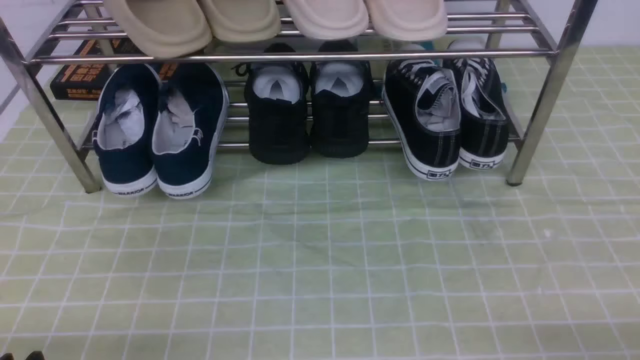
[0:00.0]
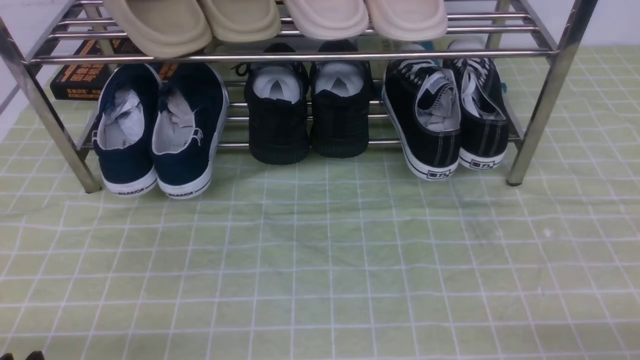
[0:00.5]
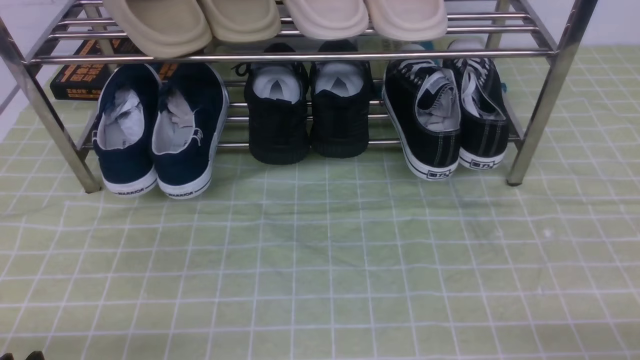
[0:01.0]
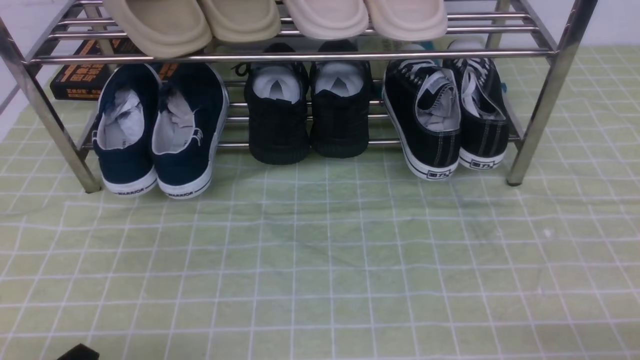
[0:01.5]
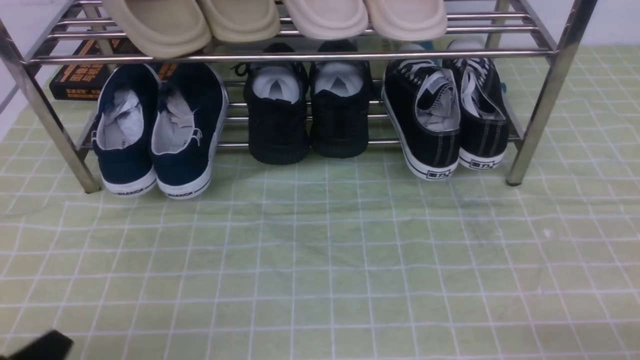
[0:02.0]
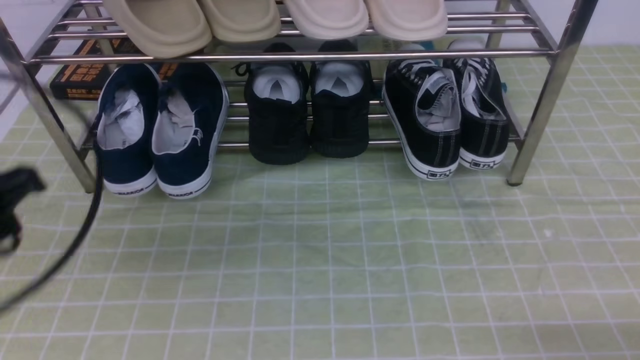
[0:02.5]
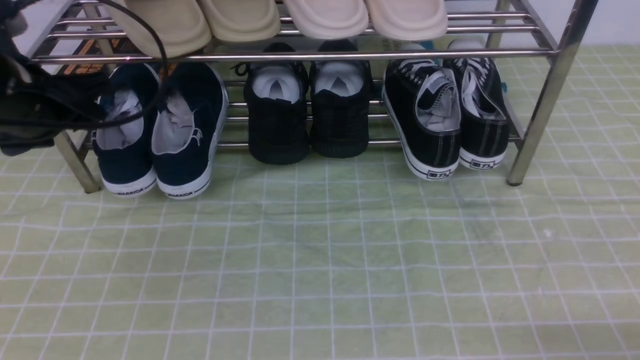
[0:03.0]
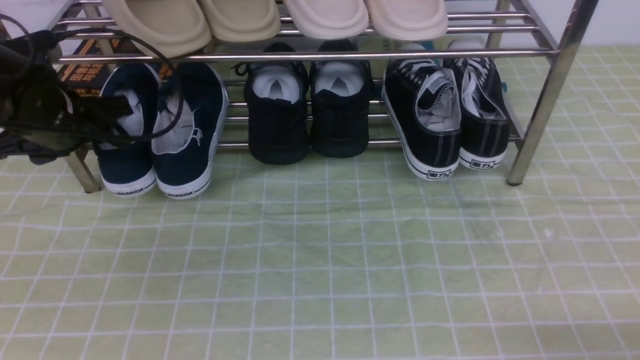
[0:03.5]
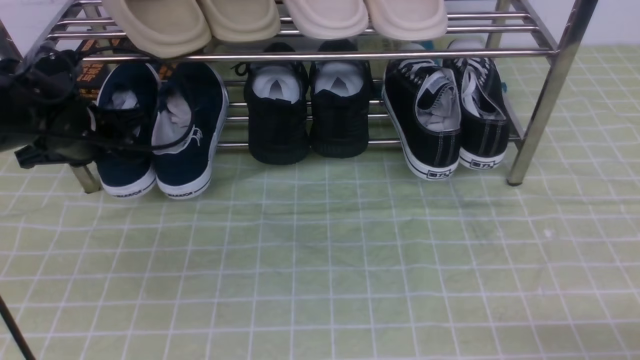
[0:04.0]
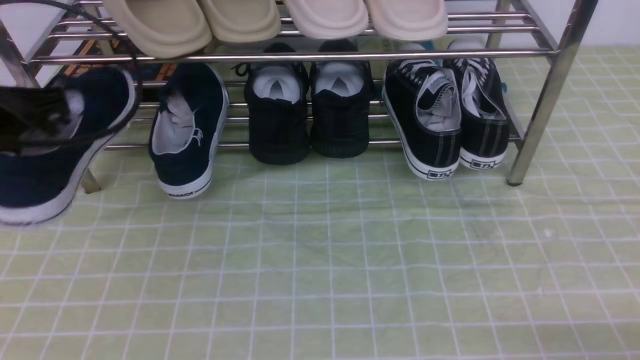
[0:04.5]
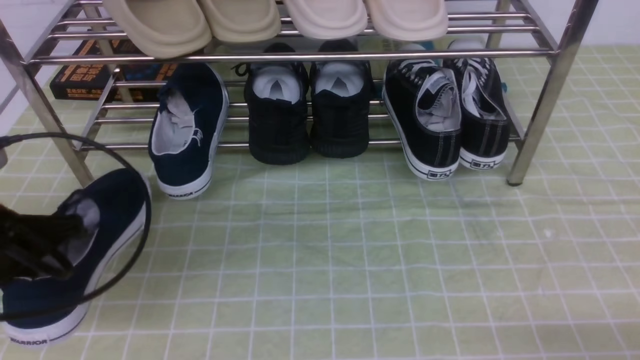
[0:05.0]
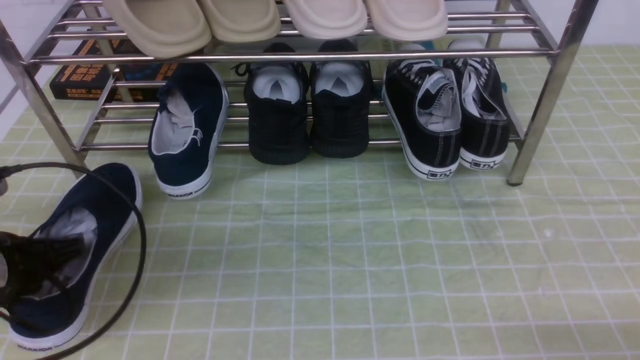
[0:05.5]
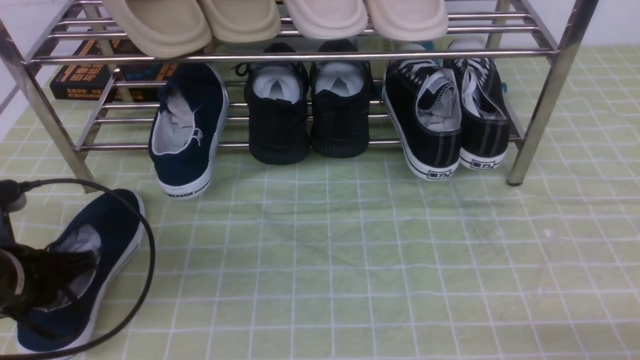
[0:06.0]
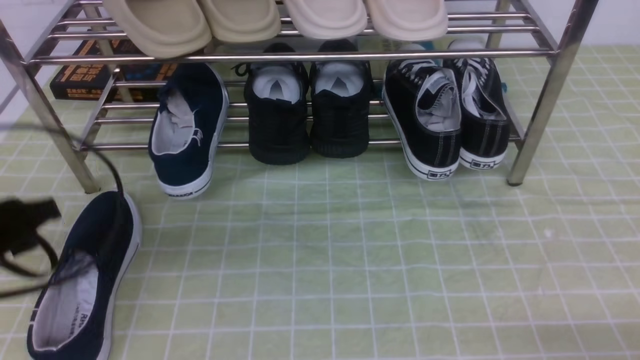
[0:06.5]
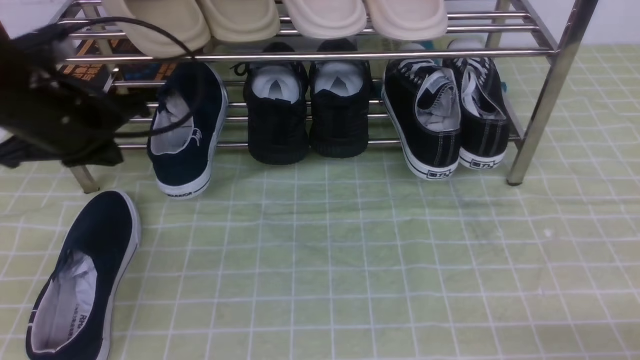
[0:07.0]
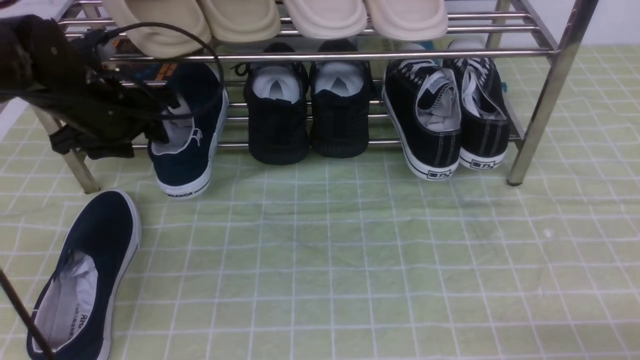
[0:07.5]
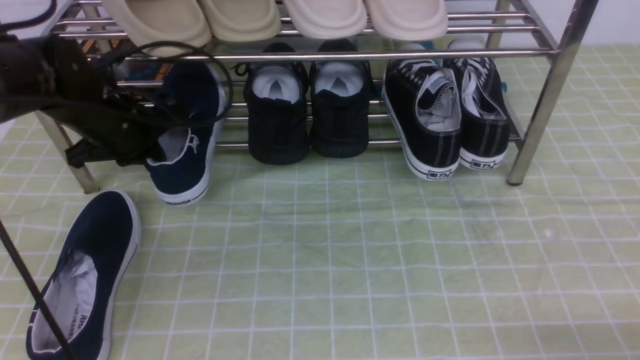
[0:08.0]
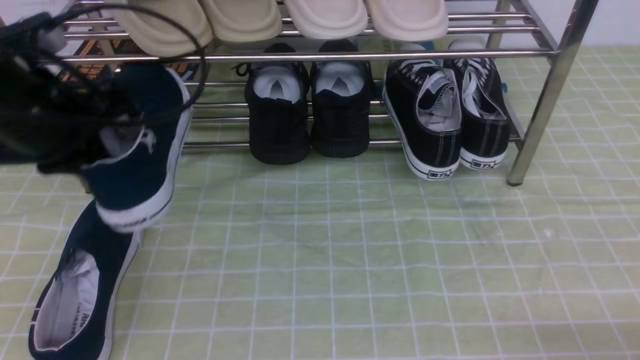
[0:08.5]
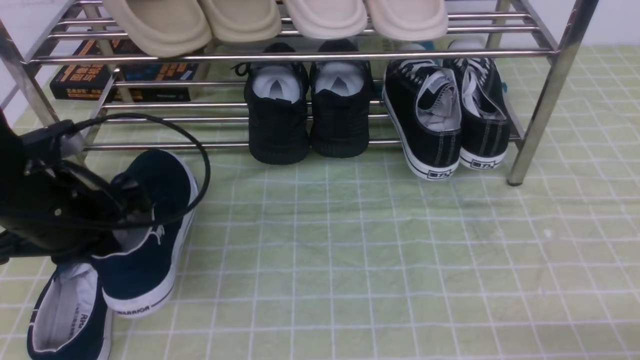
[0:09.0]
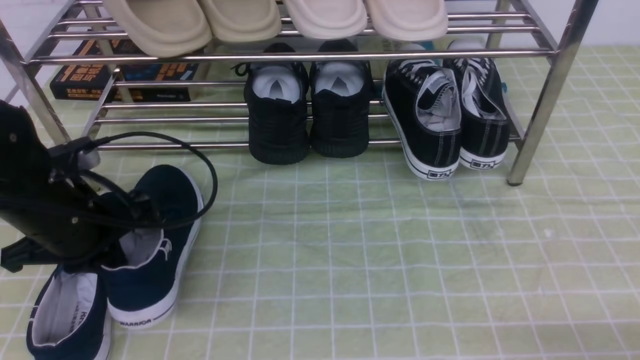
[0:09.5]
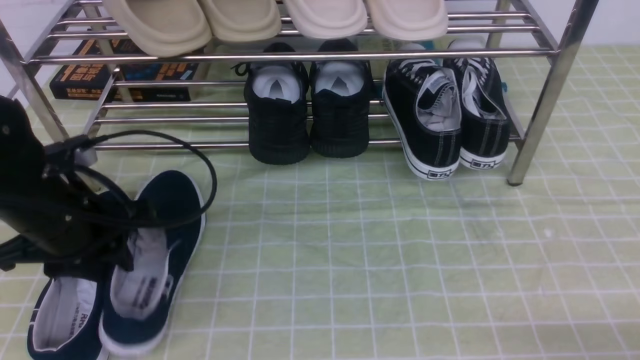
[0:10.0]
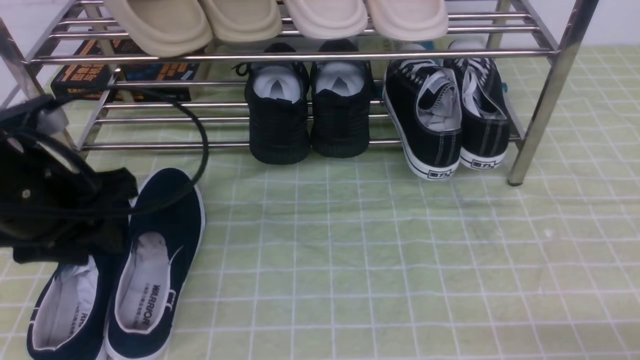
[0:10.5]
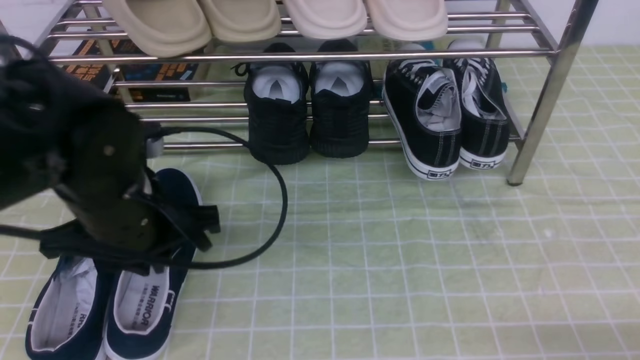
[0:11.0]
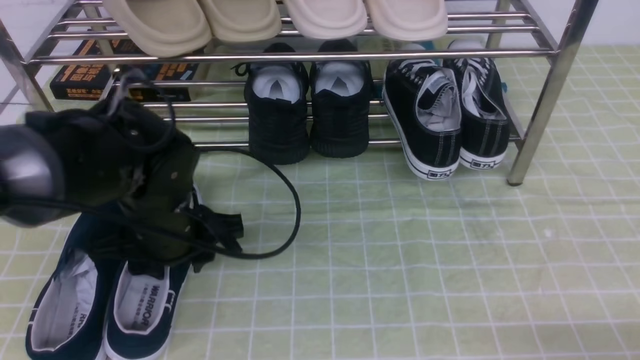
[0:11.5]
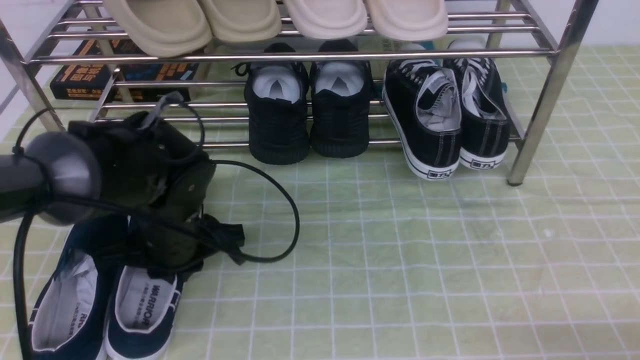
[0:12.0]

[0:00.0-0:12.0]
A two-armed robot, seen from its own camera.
Step, 0:00.0 to 0:04.0: use the left arm to clamp a shoe on the left side of the shoe rack.
Step, 0:04.5 to 0:06.0: Use your left arm to remove the clamped shoe from the shoe rack and put it down.
Step, 0:06.5 to 0:07.5: use the left arm to clamp a shoe on the left side of the shoe rack.
Step, 0:08.0 to 0:10.0: Use your left arm to remove the clamped shoe from the shoe rack and put it down.
0:00.0 to 0:02.0: The left gripper is displaced upward by approximately 5 cm, and closes up.
0:02.0 to 0:04.0: The left gripper goes approximately 30 cm forward, and opens, then closes again.
0:04.0 to 0:06.0: The left gripper is displaced backward by roughly 15 cm.
0:06.0 to 0:08.0: The left gripper shifts about 15 cm forward, and opens, then closes once more.
0:08.0 to 0:10.0: The left gripper heads backward, covering about 10 cm, and opens.
0:10.0 to 0:12.0: The left gripper travels to the right and downward by some 10 cm, and closes its fingers.

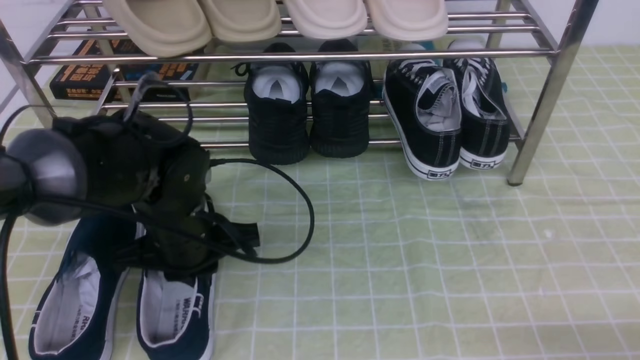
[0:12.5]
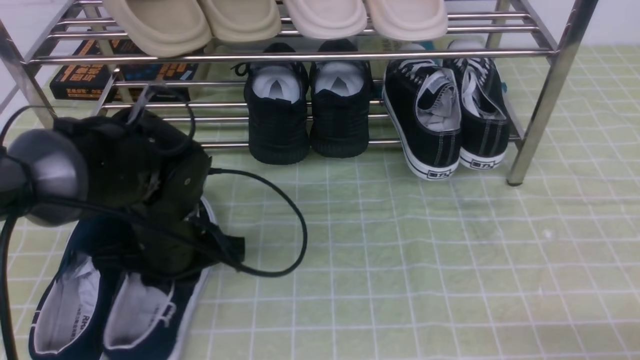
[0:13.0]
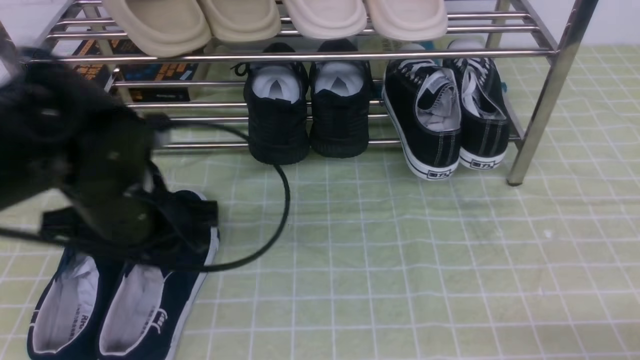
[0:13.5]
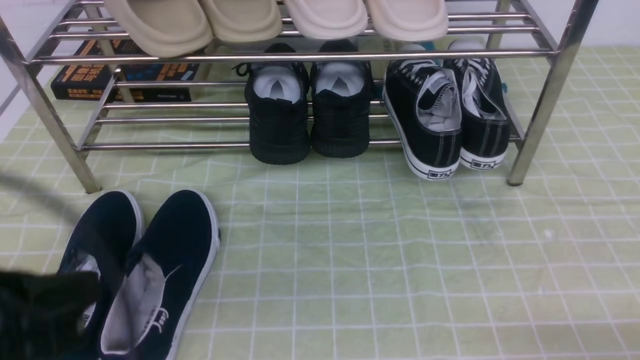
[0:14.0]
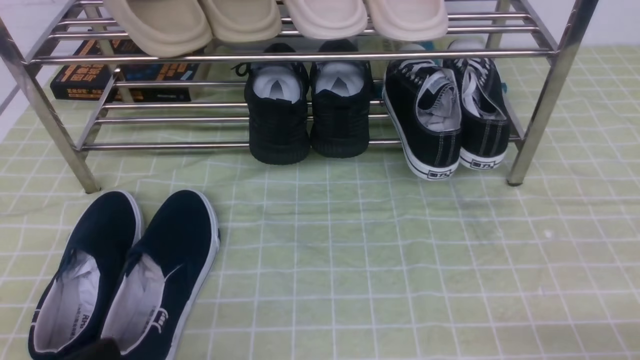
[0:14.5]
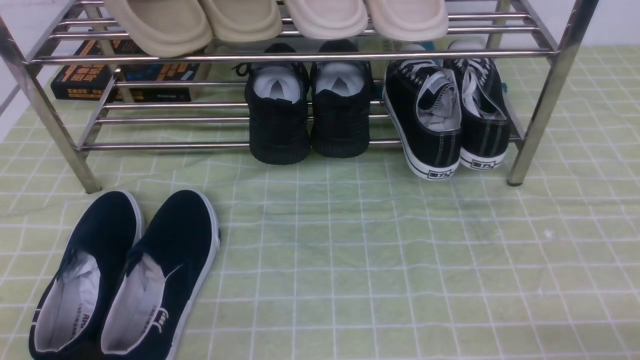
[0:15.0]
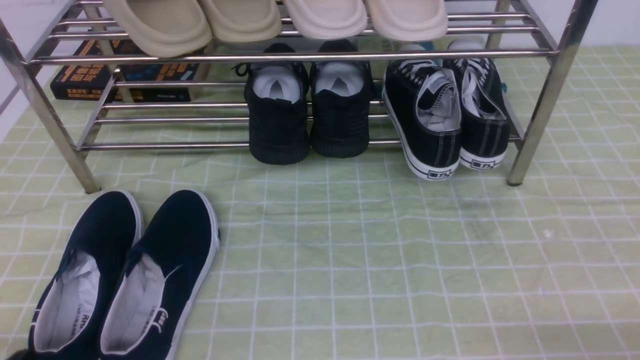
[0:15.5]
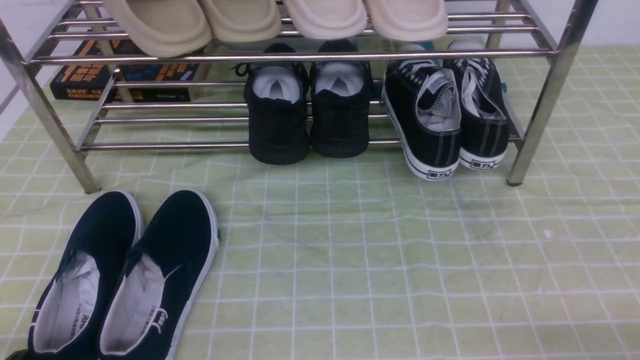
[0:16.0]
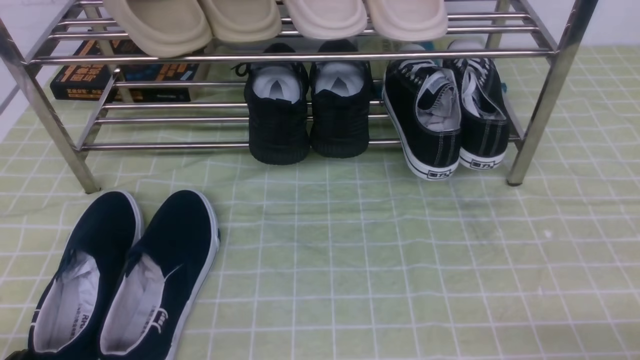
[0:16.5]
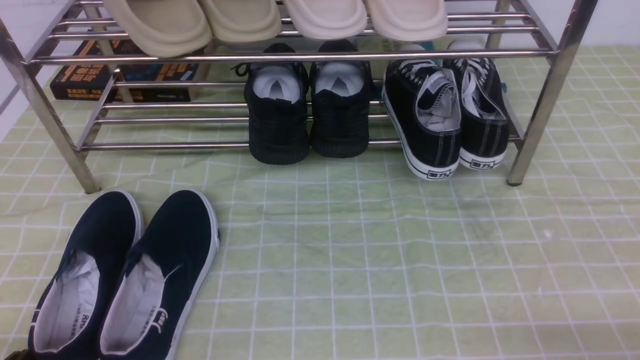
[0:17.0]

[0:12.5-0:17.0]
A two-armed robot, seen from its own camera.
0:12.5 to 0:14.5: The left gripper moves backward and to the left, approximately 25 cm, and opens, then closes once more.
0:14.5 to 0:17.0: The left gripper changes place by approximately 5 cm.

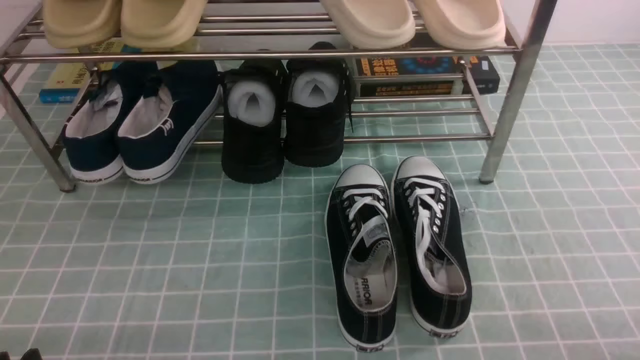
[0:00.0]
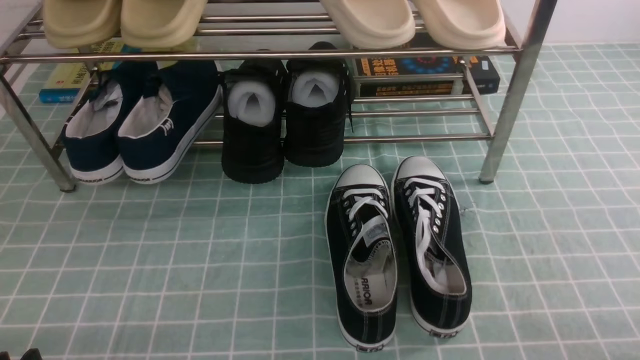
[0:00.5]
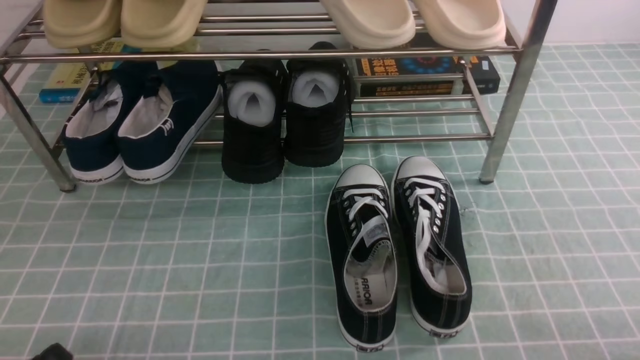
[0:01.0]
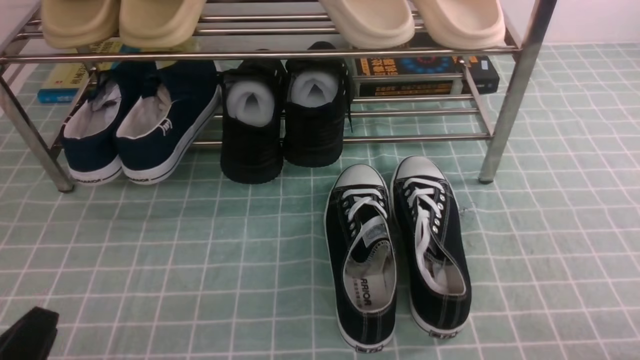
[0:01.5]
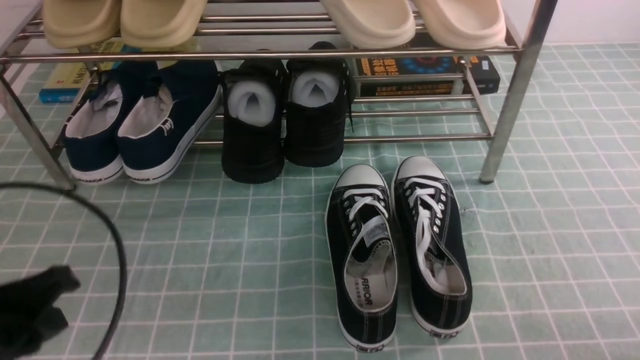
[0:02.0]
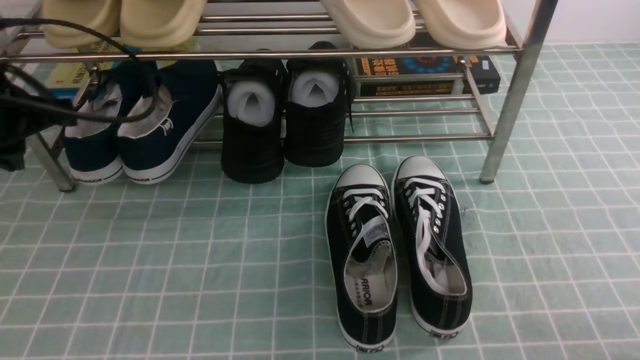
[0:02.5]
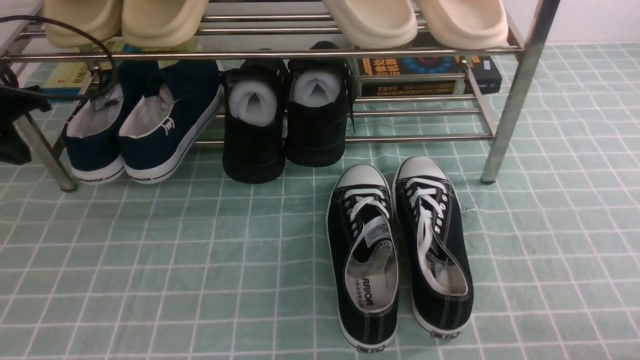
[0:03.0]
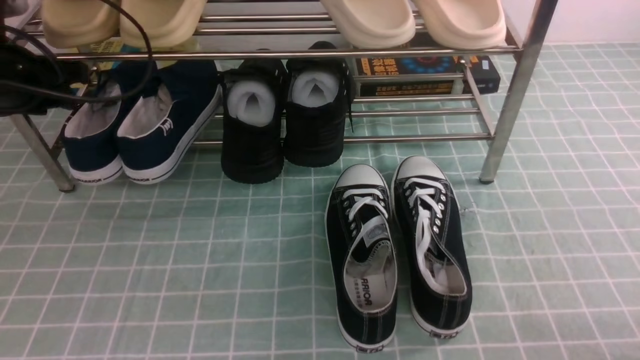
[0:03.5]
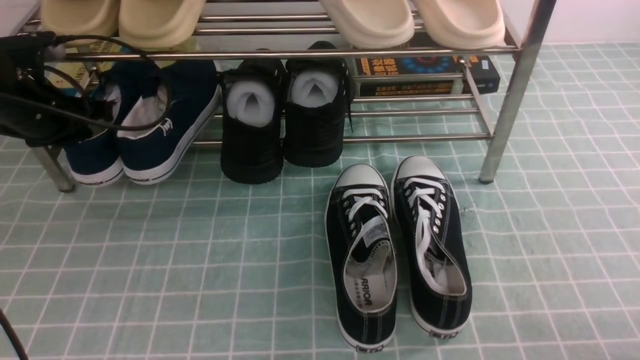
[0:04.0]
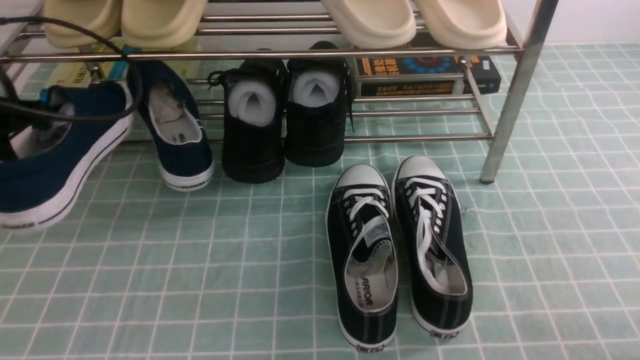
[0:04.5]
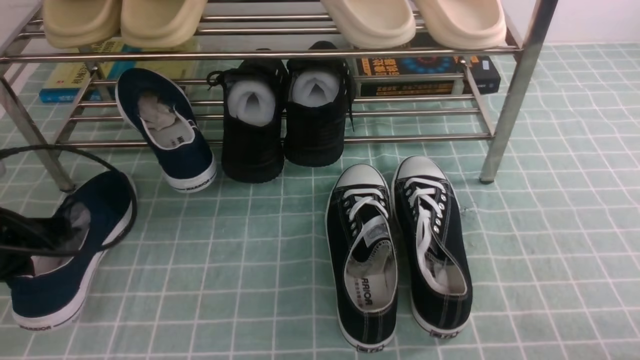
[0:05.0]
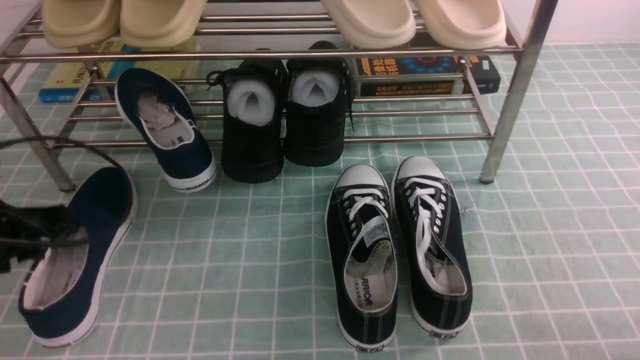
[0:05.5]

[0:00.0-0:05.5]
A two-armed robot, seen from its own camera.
Step, 0:00.0 to 0:03.5: use the left arm to clamp a shoe on the left side of the shoe rack.
0:00.0 to 0:02.0: The left gripper goes some 15 cm upward and forward, and closes.
0:02.0 to 0:03.5: The left gripper travels forward by roughly 25 cm, and opens its fingers.
0:03.5 to 0:05.5: The left gripper goes approximately 10 cm backward, and closes and opens again.
